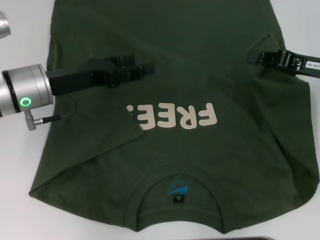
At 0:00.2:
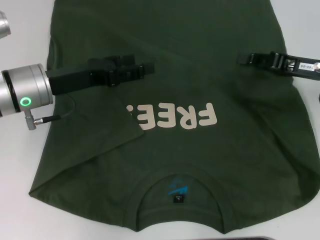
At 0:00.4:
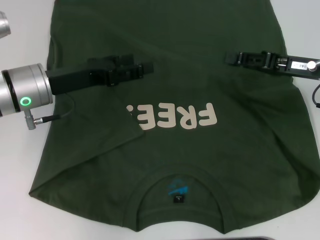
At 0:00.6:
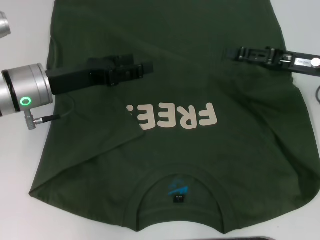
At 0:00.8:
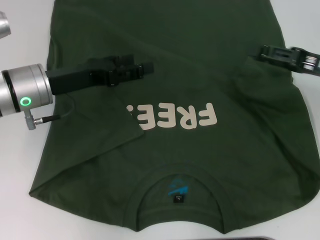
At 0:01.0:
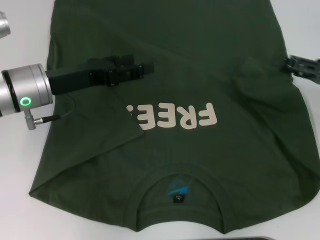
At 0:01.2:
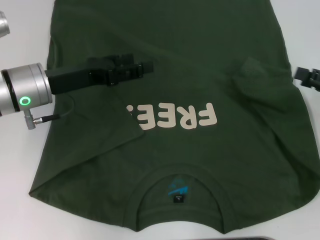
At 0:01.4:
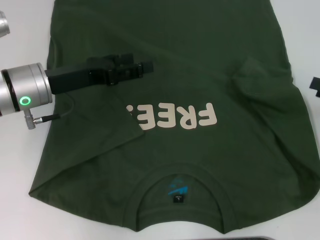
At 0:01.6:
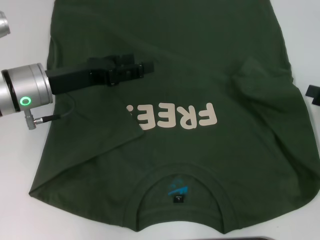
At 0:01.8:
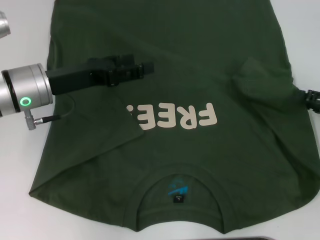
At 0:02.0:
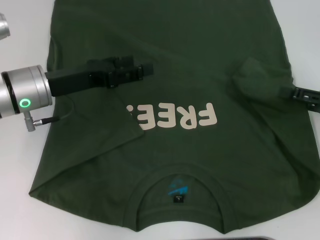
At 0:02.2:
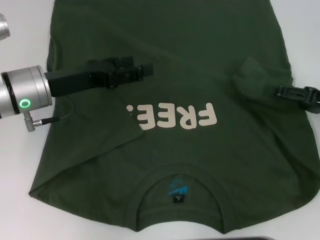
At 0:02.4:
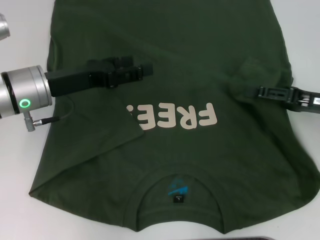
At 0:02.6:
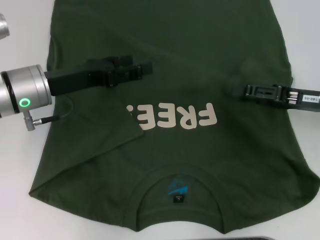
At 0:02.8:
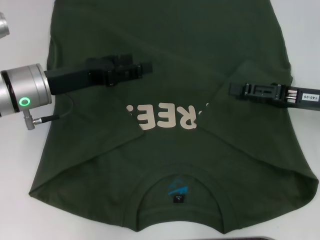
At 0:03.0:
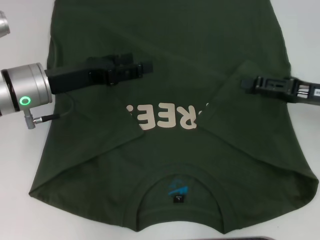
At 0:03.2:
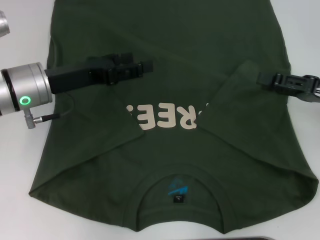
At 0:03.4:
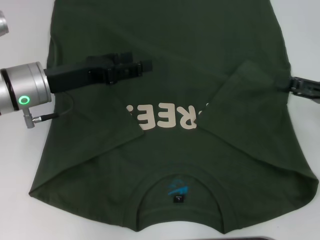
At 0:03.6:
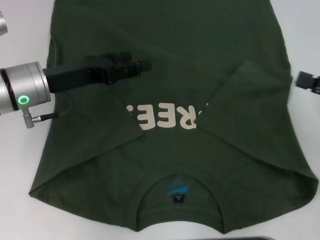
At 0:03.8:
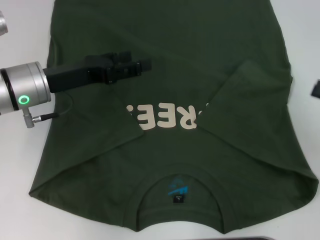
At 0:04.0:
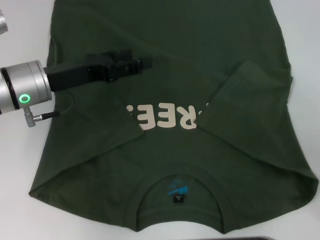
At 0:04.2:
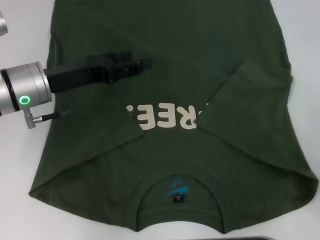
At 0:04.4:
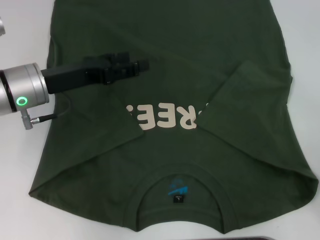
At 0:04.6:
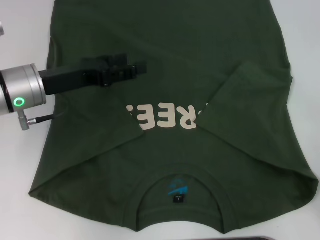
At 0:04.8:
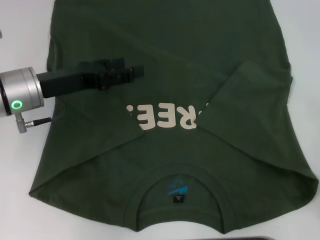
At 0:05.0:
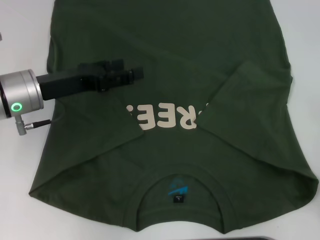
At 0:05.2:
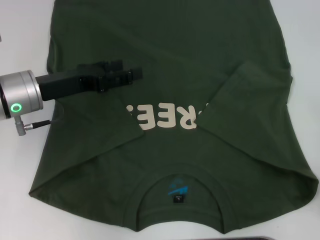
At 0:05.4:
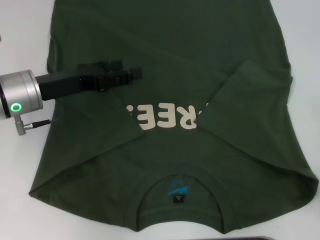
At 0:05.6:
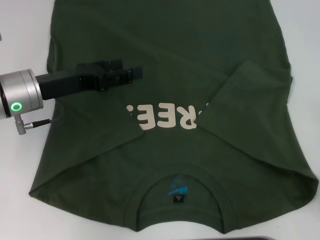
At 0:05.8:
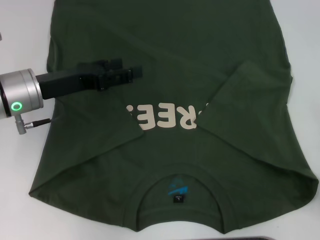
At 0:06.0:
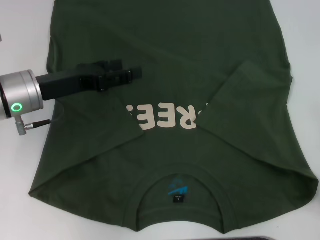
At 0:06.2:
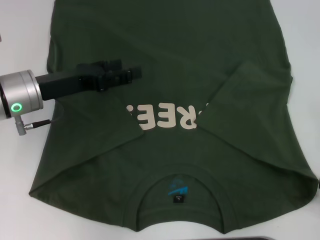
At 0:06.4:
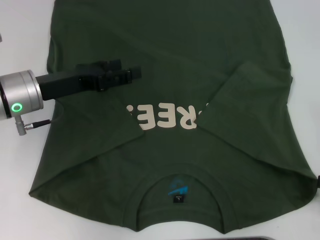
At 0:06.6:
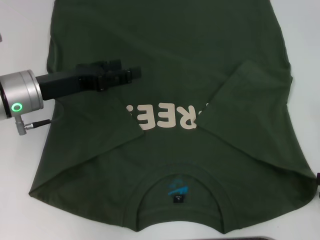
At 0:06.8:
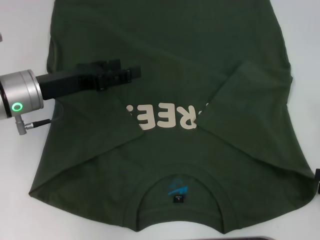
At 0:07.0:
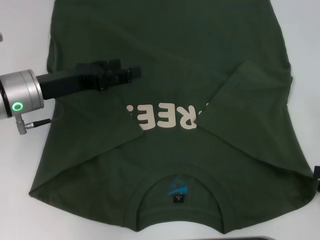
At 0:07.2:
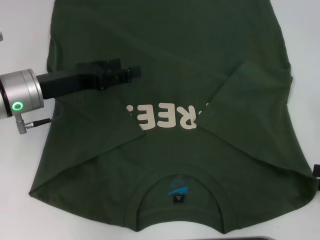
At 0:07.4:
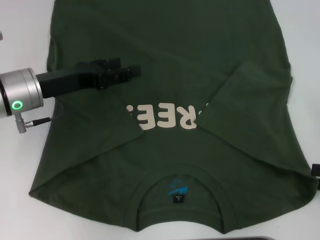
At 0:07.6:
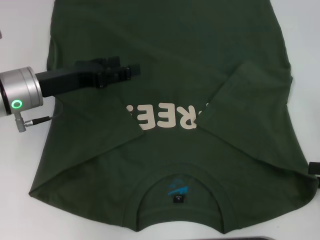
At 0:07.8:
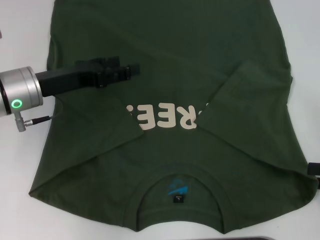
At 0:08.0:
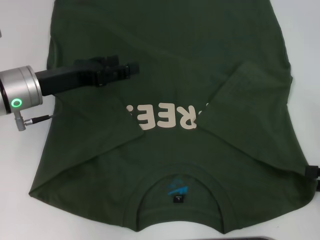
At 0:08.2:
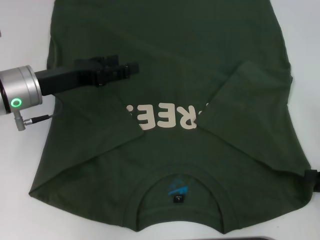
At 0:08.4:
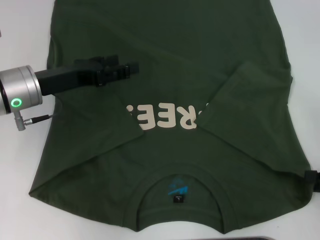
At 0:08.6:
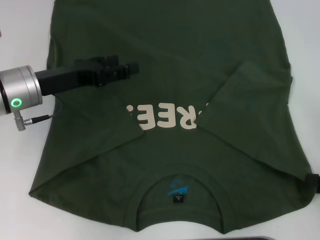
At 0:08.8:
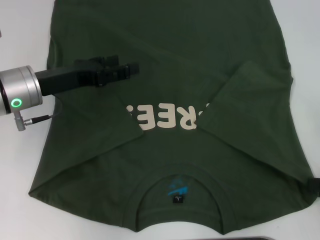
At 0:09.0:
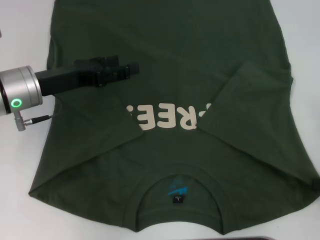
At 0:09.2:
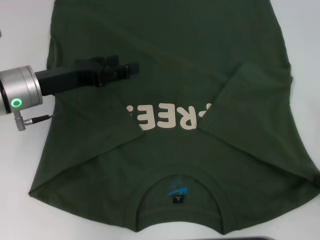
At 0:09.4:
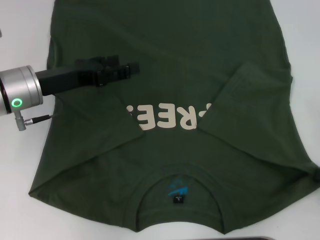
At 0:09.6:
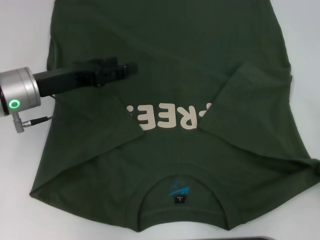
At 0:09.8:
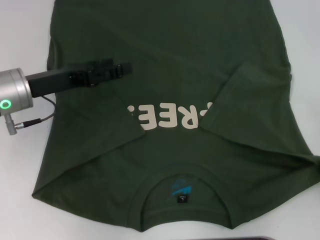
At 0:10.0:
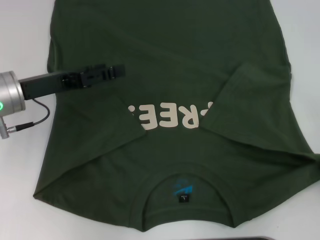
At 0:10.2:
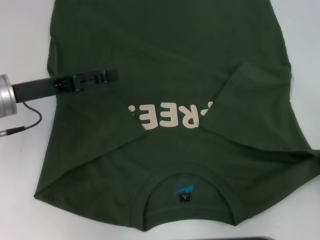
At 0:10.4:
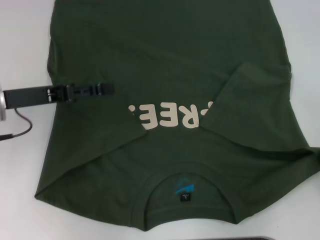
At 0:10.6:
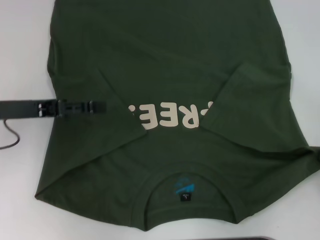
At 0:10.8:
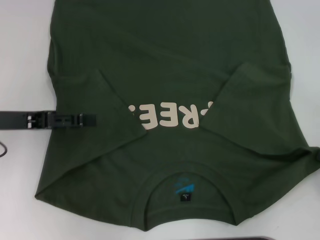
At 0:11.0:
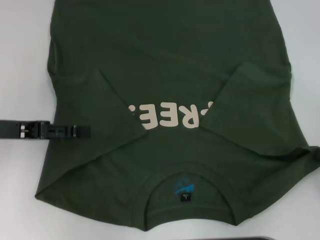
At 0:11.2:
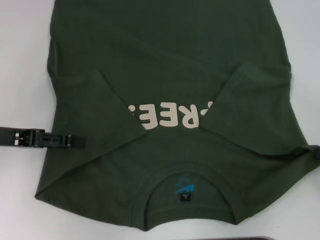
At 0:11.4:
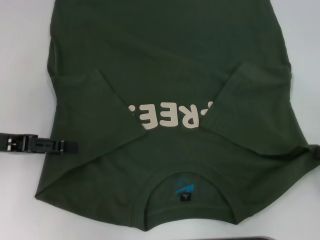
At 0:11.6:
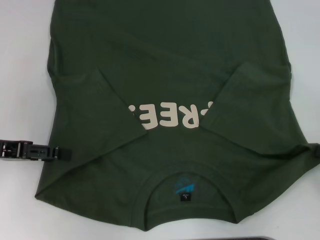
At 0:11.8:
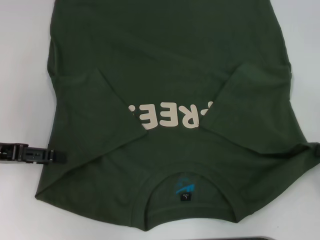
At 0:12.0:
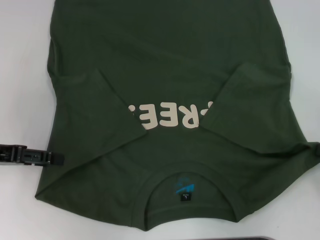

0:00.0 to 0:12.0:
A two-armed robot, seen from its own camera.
Step, 0:00.0 to 0:02.6: Fold the bottom right sleeve with your right hand.
Step, 0:02.8 to 0:10.2: Grab the bottom right corner with your right hand.
0:00.0 to 0:01.6: The right gripper heads to the right and backward, covering approximately 10 cm, and opens.
0:01.6 to 0:03.0: The right gripper travels to the left by about 10 cm.
0:03.0 to 0:04.4: The right gripper heads backward and to the right, covering roughly 20 cm.
0:04.4 to 0:06.0: There are only small adjustments of the grippers.
0:06.0 to 0:07.6: The grippers move only a little.
0:07.6 to 0:09.0: The right gripper closes its fingers.
0:09.0 to 0:10.4: The left gripper shifts by roughly 5 cm.
0:10.4 to 0:12.0: The left gripper travels to the left by approximately 5 cm.

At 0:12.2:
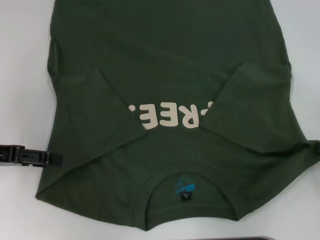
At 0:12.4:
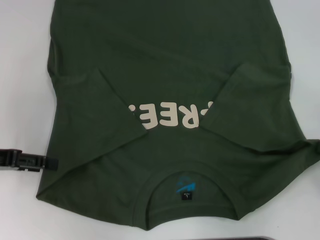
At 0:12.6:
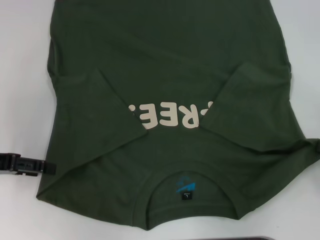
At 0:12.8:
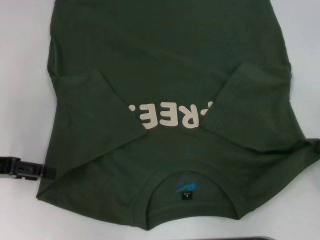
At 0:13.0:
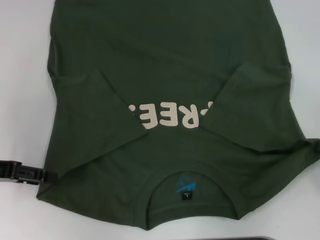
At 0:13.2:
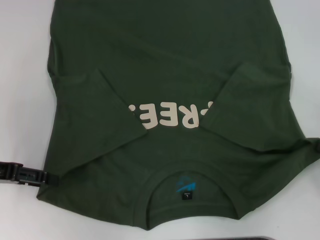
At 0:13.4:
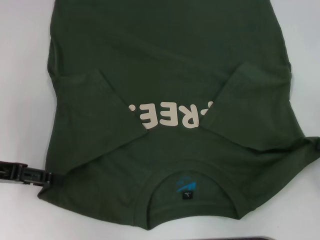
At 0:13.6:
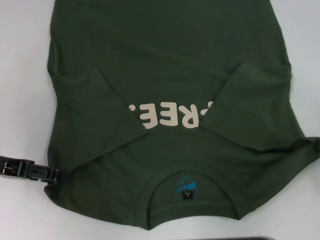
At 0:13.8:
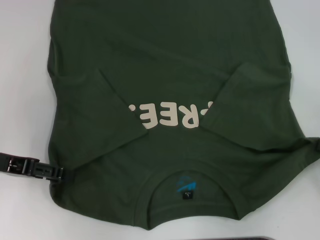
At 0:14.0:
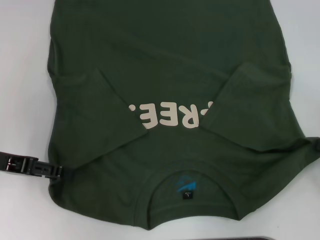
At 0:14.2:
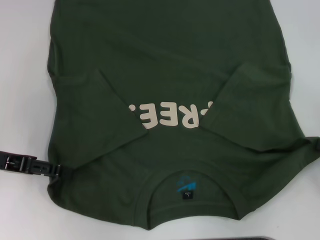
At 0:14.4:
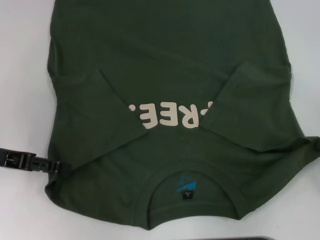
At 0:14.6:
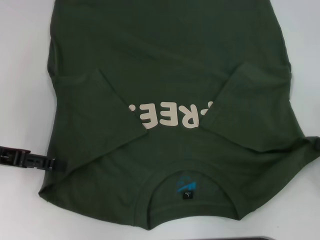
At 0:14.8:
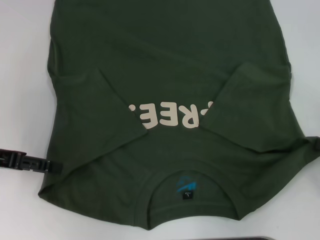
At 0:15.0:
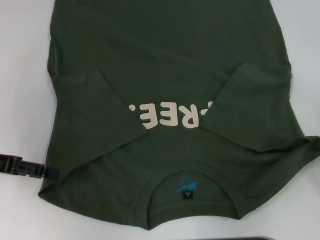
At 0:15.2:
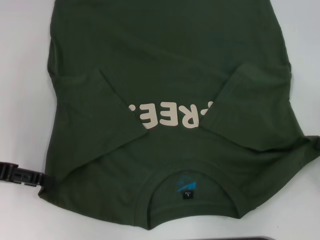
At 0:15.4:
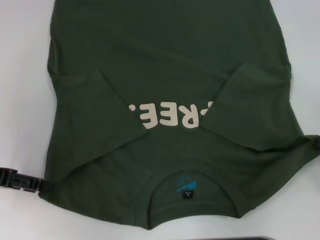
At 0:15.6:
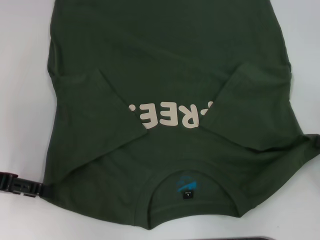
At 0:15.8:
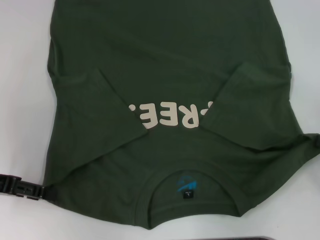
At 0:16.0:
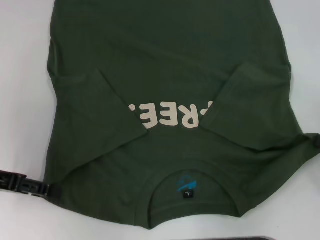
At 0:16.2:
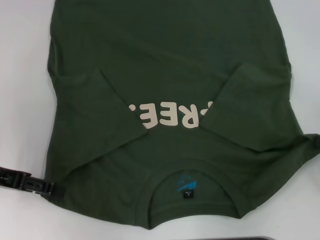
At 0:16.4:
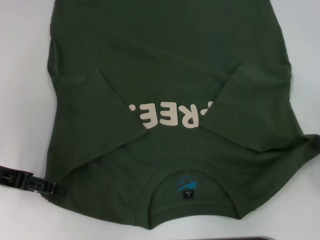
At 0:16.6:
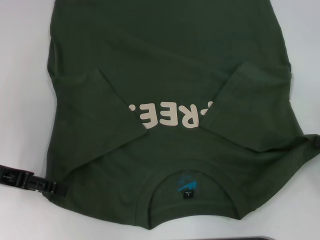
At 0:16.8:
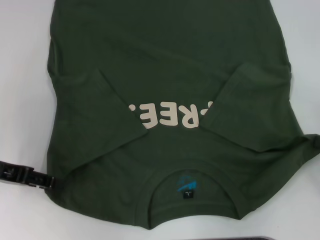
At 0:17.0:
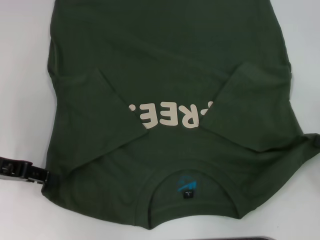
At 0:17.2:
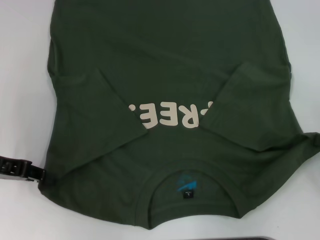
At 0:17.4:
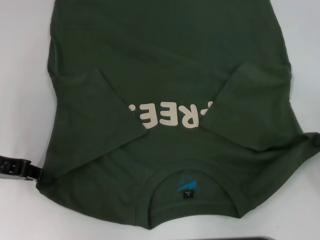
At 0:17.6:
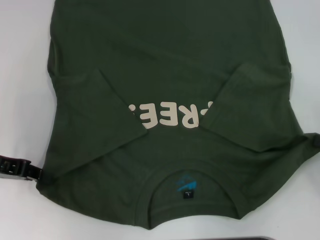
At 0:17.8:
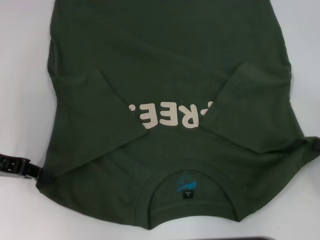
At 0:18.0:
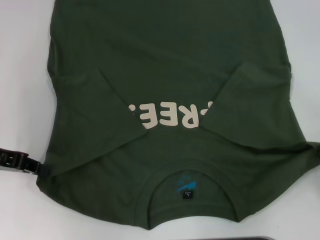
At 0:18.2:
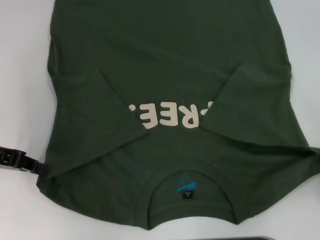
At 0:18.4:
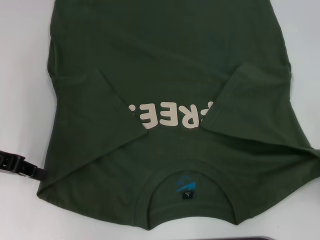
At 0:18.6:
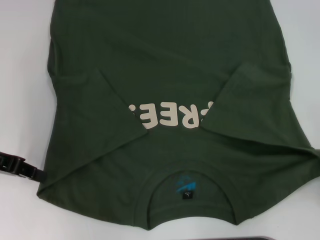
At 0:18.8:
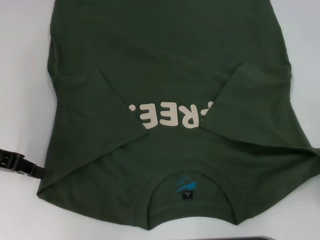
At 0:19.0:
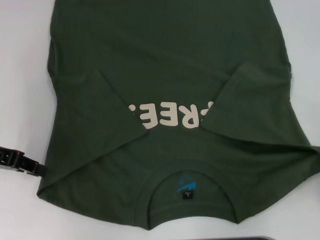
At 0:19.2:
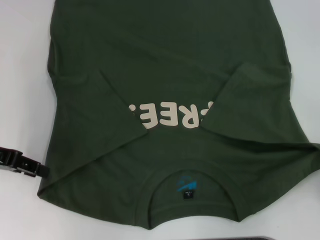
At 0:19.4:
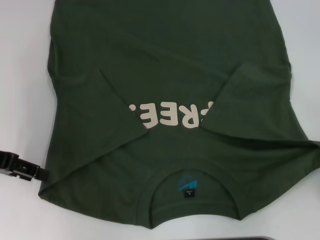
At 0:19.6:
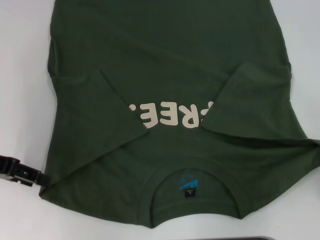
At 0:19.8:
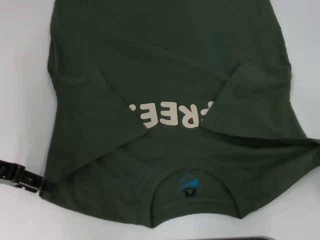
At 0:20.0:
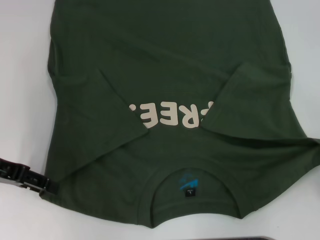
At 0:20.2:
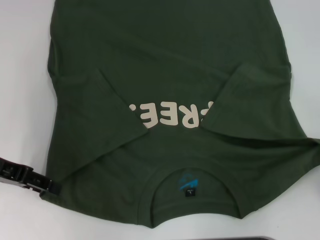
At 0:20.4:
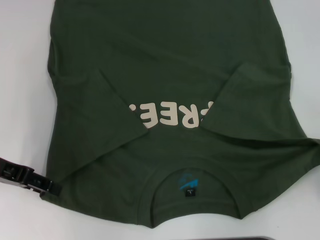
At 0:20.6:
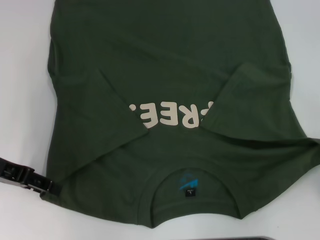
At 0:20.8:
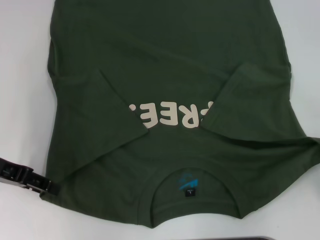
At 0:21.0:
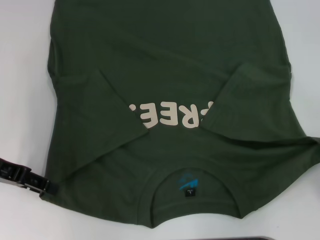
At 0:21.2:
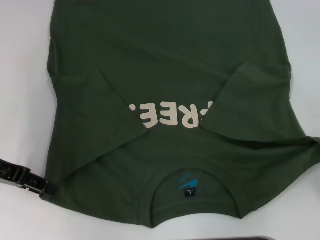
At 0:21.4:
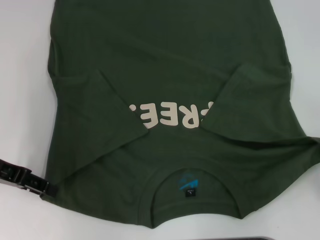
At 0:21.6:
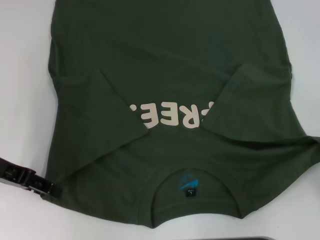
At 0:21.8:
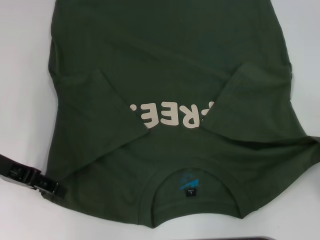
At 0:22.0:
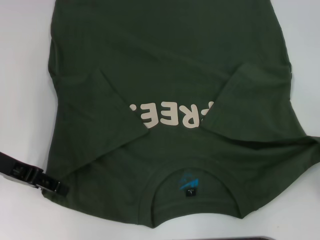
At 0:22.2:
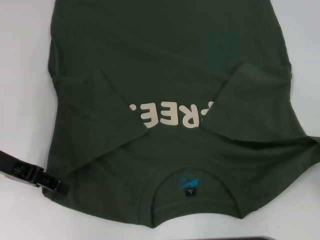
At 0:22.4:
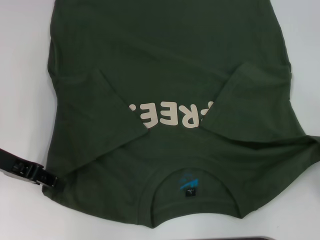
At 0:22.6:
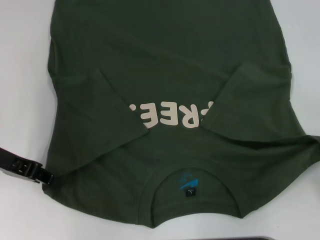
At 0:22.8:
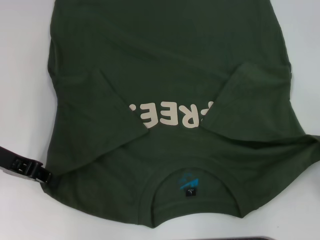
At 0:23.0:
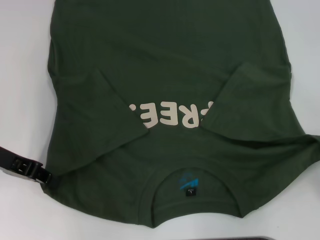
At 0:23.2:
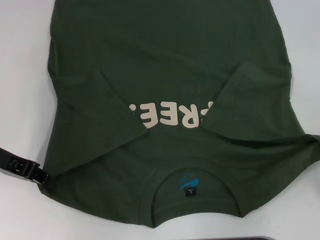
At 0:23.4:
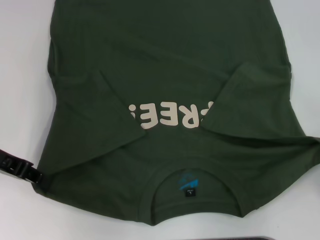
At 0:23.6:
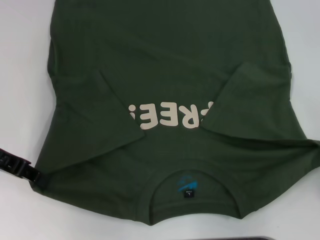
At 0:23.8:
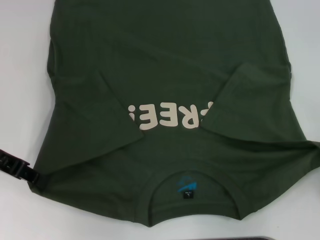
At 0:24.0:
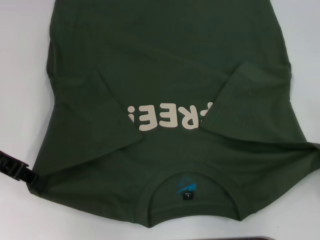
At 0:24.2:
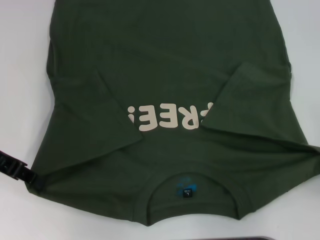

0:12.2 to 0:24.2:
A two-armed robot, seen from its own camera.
Step, 0:12.2 to 0:23.4: Grab the bottom left corner with your left hand.
0:12.2 to 0:16.6: The grippers make only small movements.
0:16.6 to 0:18.2: The left gripper closes up.
0:18.2 to 0:19.8: The left gripper opens.
0:19.8 to 0:21.2: Neither gripper changes place.
0:21.2 to 0:22.6: The grippers stay close to where they were, moving slightly.
0:22.6 to 0:24.2: The left gripper closes.
